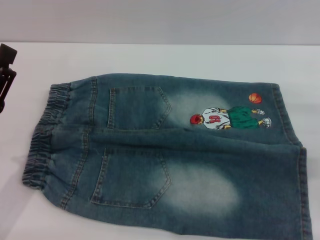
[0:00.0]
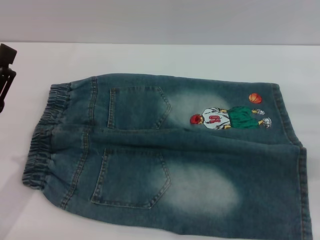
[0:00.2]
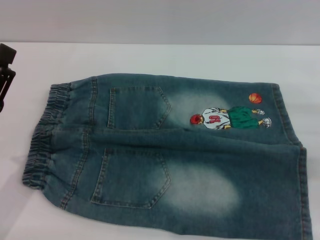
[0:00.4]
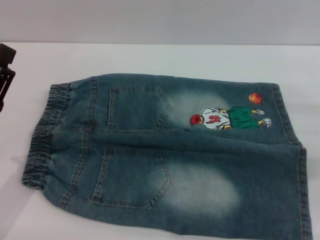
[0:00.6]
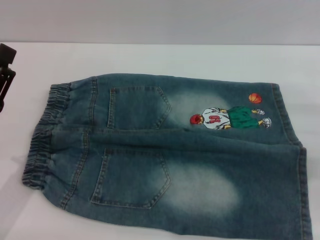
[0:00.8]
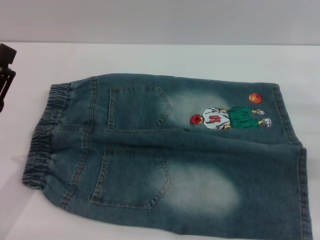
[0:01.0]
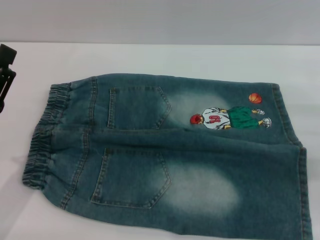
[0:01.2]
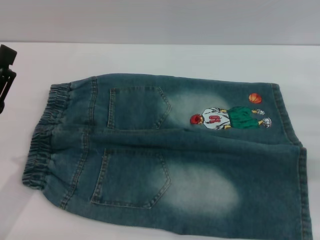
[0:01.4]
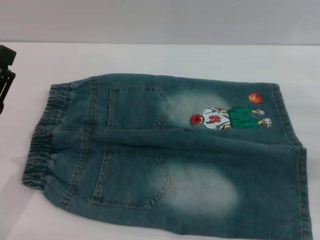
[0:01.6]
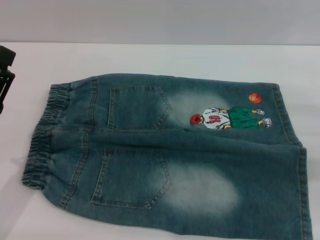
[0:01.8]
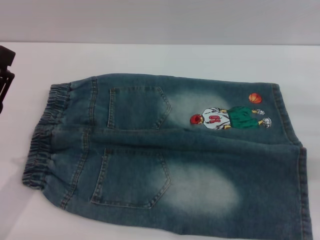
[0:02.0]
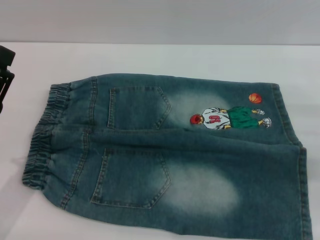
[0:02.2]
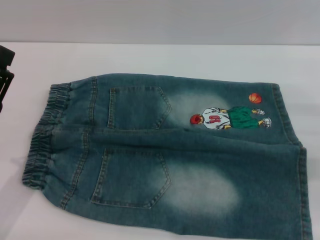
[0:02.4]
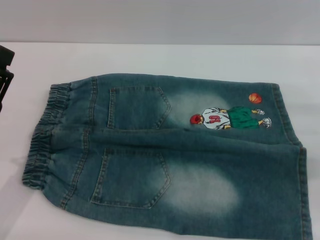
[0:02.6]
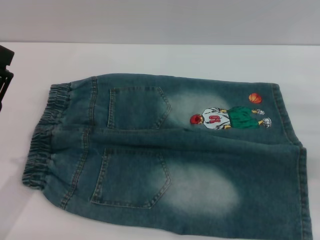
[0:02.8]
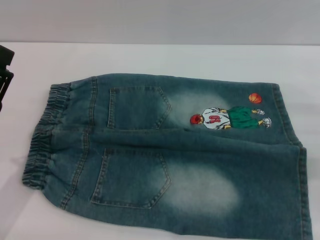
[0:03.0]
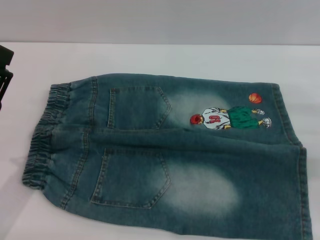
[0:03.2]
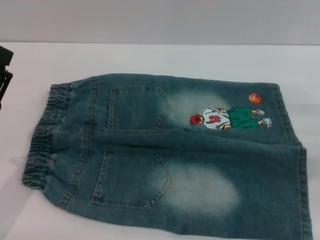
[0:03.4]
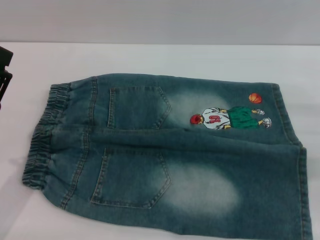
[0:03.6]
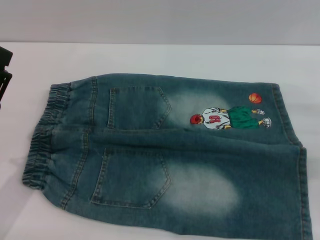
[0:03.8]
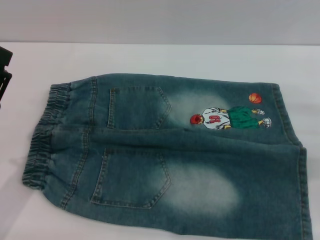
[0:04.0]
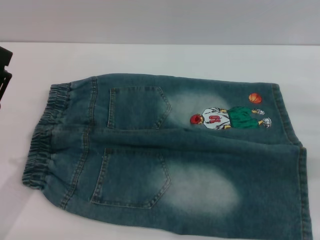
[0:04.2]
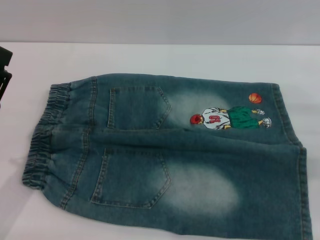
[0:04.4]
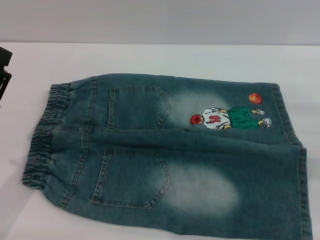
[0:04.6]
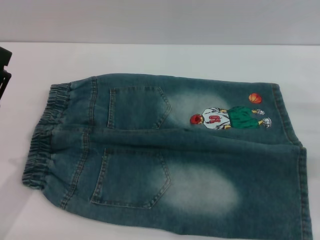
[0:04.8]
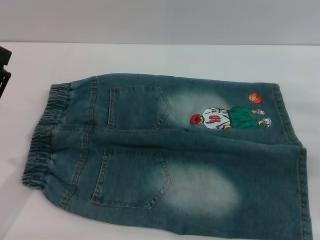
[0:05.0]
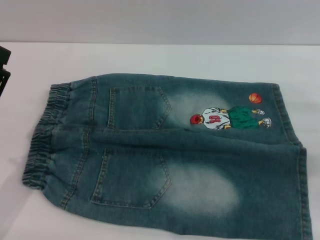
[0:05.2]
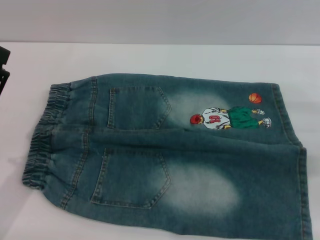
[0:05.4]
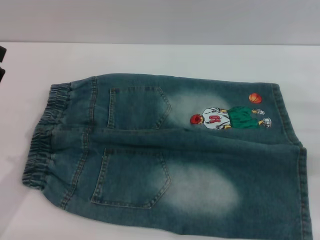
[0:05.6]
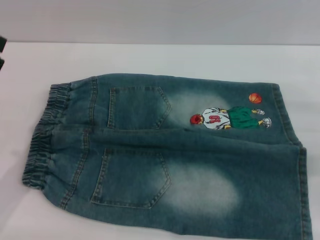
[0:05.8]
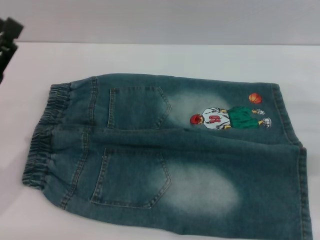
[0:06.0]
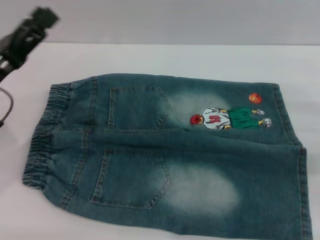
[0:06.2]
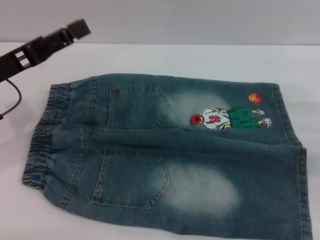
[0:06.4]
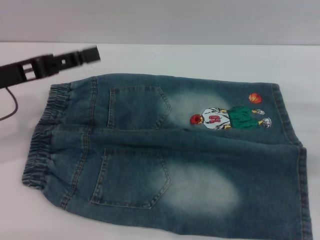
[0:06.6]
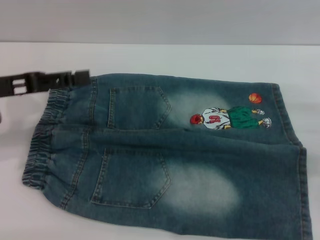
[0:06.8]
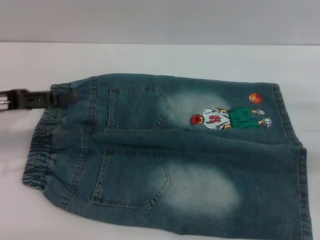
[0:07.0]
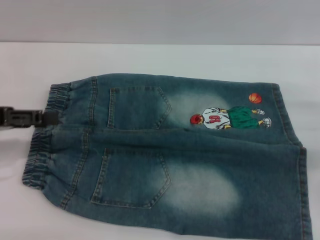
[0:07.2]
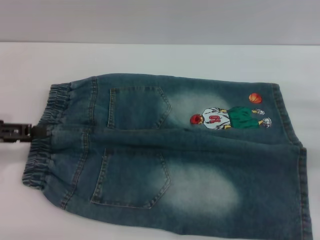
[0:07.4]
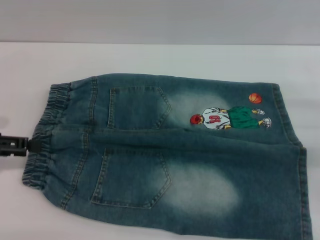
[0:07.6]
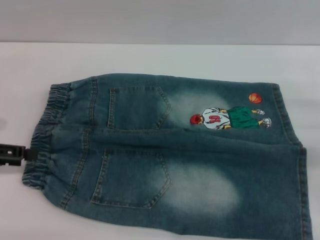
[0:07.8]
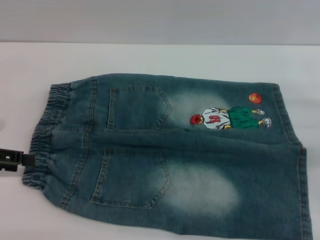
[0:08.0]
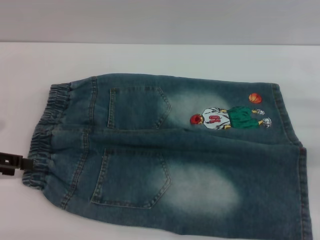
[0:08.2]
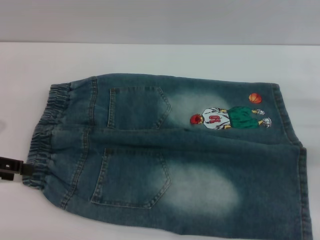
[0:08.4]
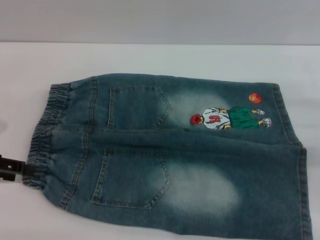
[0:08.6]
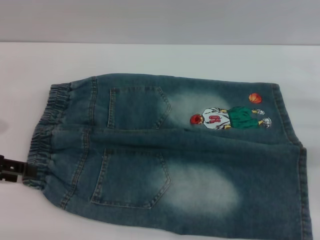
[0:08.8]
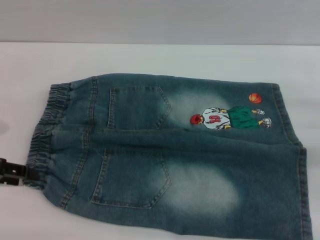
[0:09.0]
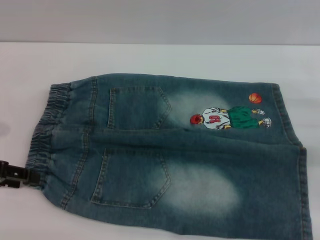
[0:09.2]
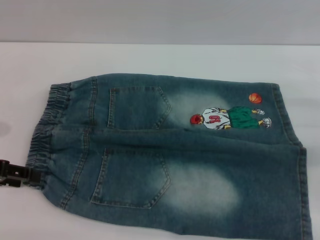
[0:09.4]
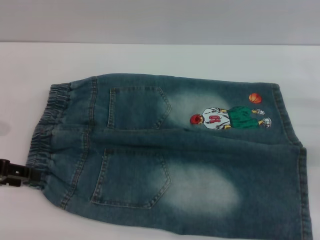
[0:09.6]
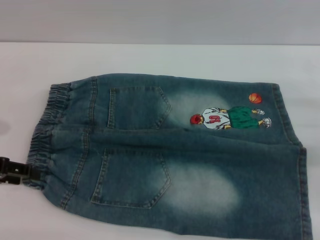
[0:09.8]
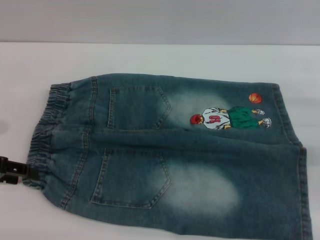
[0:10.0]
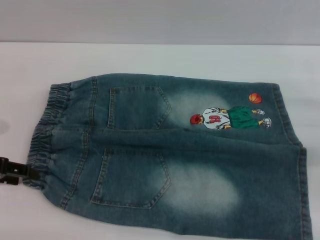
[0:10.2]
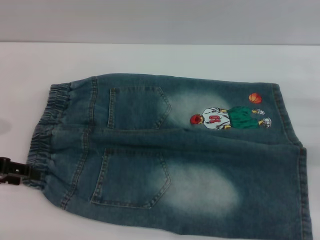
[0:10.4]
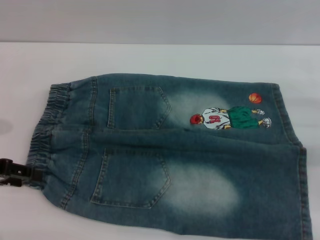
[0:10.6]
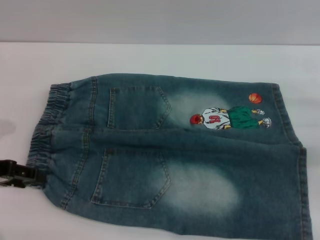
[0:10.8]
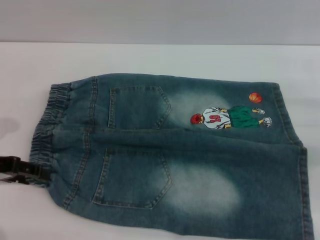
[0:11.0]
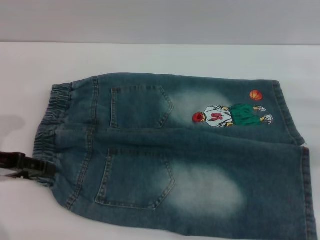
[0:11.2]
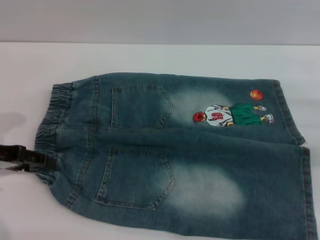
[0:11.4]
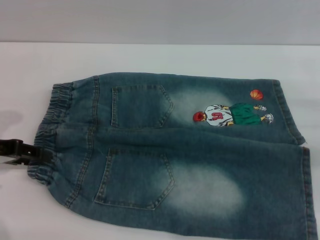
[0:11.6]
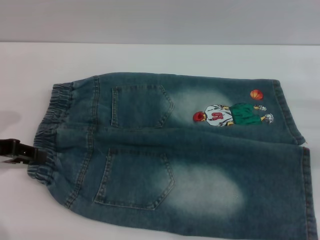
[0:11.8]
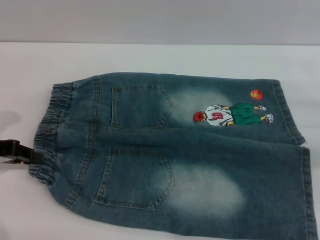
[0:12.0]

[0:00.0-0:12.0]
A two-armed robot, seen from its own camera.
0:00.0 to 0:04.4: Both grippers stay about where they are.
0:04.4 to 0:06.0: The grippers move only a little.
0:06.0 to 0:07.6: The left gripper is displaced to the left by some 10 cm.
0:07.6 to 0:09.0: The grippers move only a little.
0:09.0 to 0:10.4: The two grippers keep their place.
0:10.4 to 0:12.0: The left gripper closes its fingers.

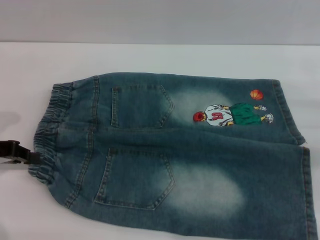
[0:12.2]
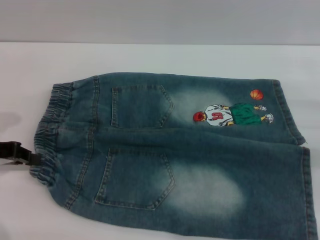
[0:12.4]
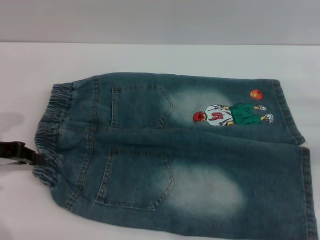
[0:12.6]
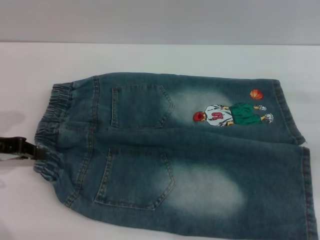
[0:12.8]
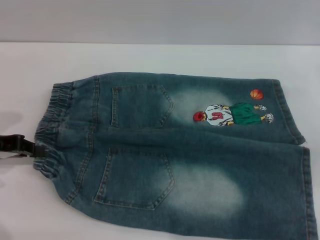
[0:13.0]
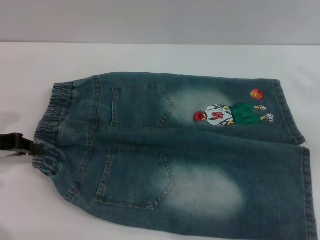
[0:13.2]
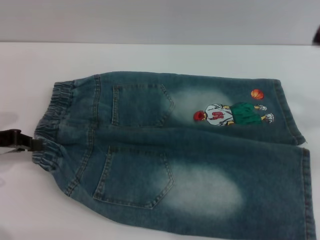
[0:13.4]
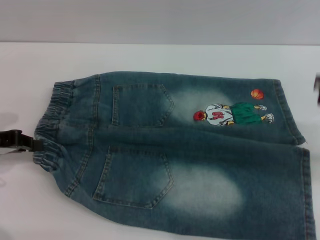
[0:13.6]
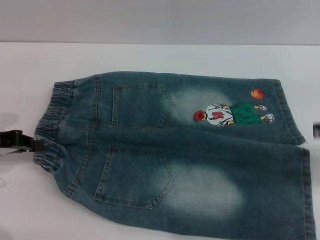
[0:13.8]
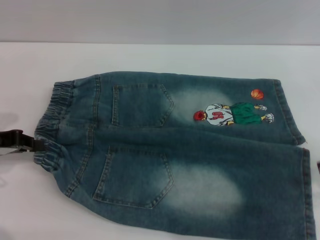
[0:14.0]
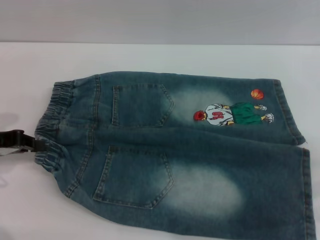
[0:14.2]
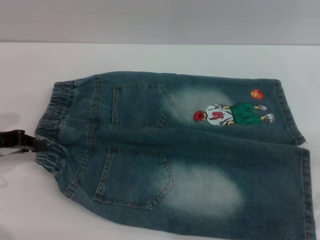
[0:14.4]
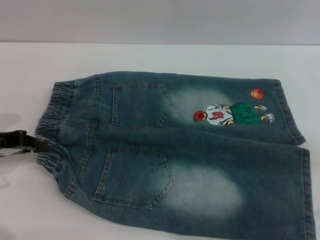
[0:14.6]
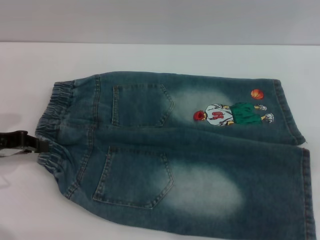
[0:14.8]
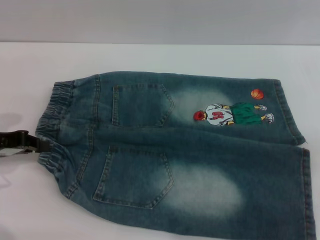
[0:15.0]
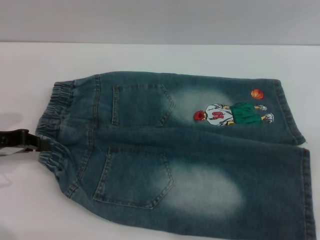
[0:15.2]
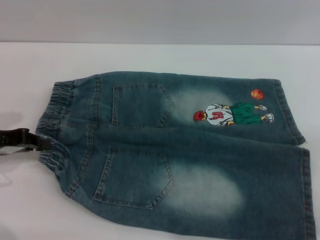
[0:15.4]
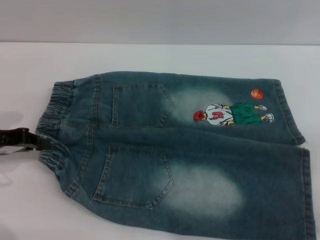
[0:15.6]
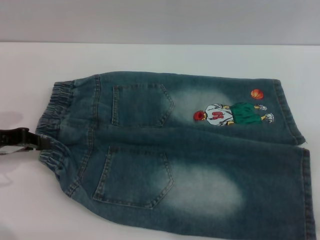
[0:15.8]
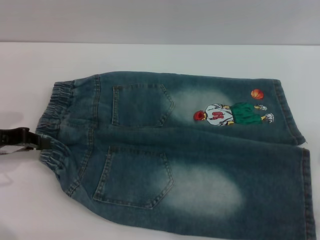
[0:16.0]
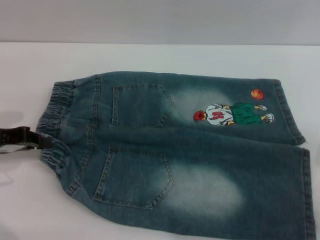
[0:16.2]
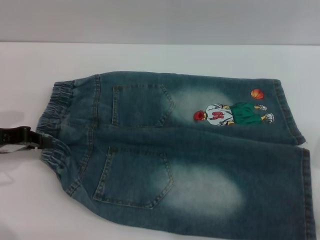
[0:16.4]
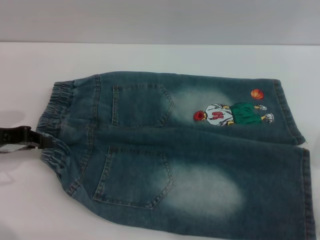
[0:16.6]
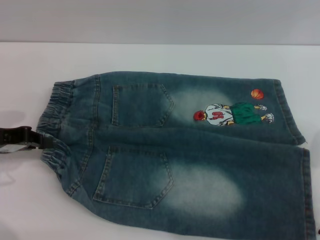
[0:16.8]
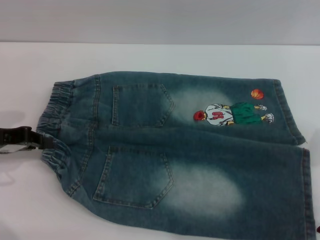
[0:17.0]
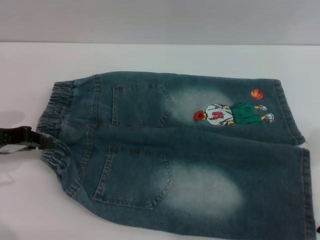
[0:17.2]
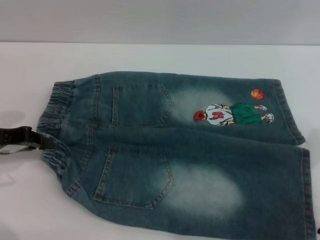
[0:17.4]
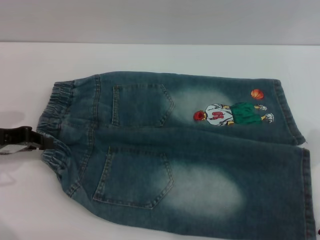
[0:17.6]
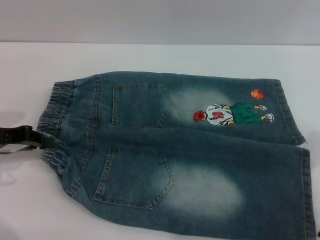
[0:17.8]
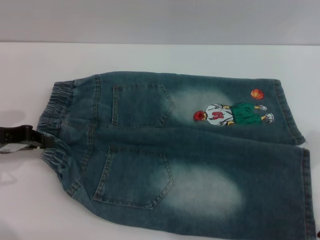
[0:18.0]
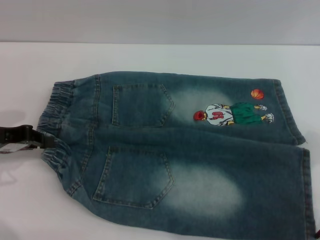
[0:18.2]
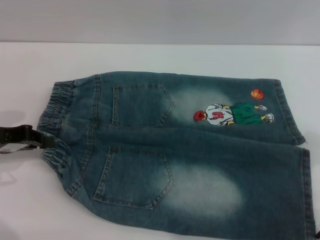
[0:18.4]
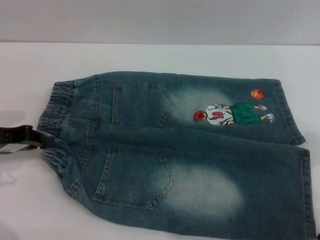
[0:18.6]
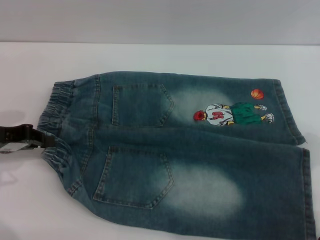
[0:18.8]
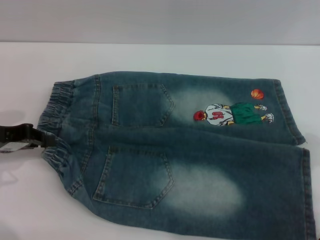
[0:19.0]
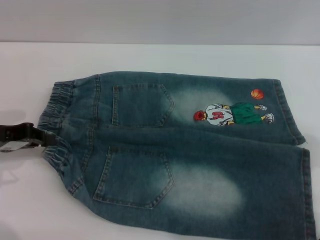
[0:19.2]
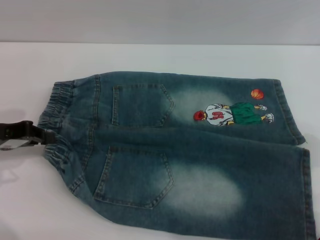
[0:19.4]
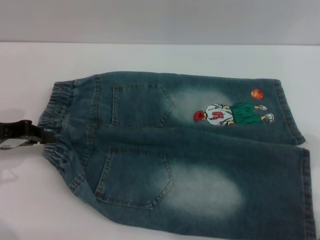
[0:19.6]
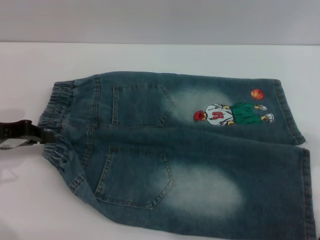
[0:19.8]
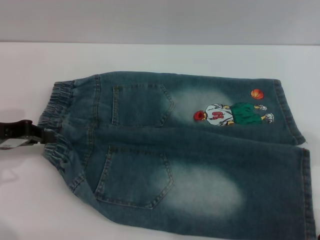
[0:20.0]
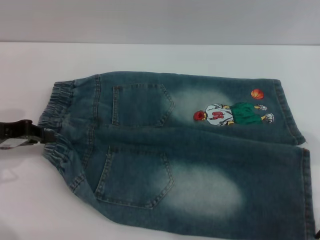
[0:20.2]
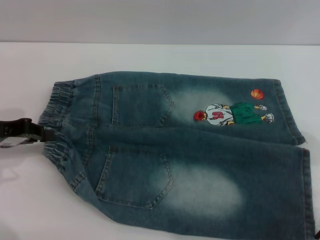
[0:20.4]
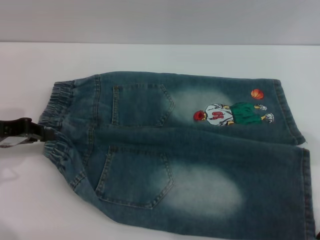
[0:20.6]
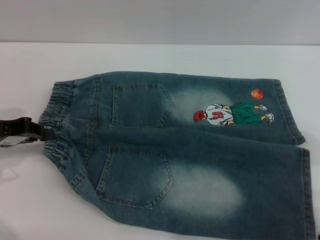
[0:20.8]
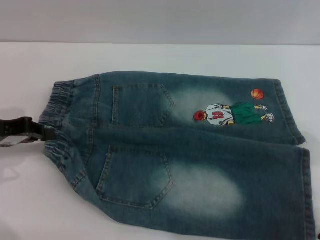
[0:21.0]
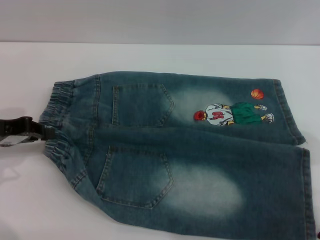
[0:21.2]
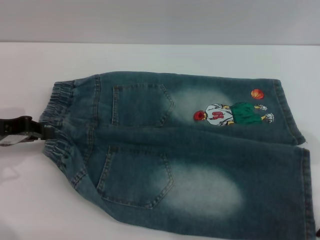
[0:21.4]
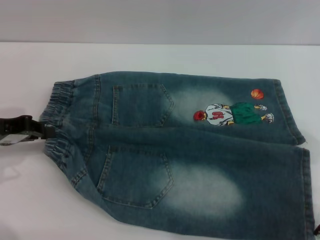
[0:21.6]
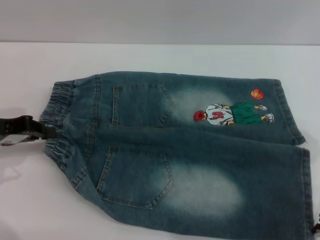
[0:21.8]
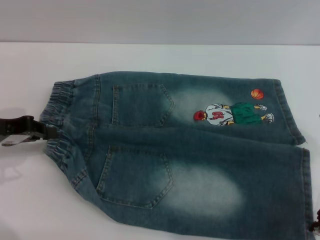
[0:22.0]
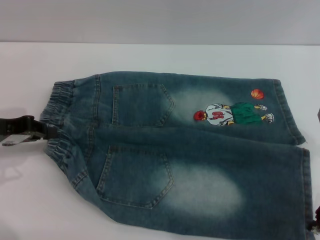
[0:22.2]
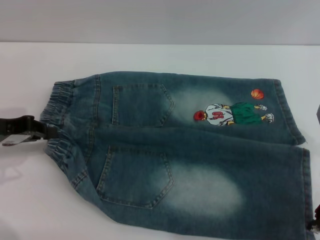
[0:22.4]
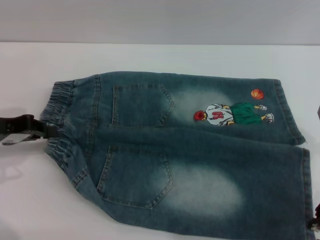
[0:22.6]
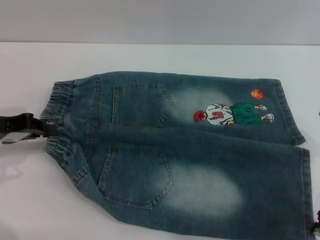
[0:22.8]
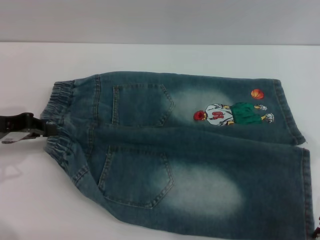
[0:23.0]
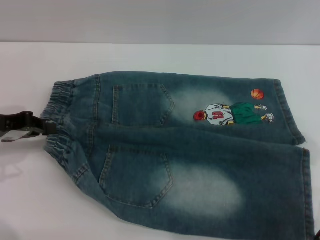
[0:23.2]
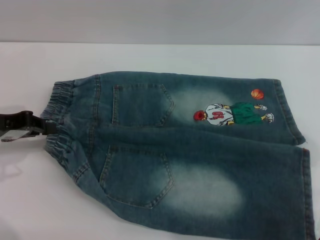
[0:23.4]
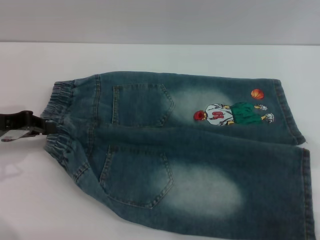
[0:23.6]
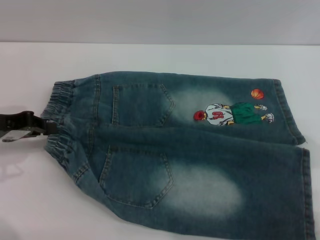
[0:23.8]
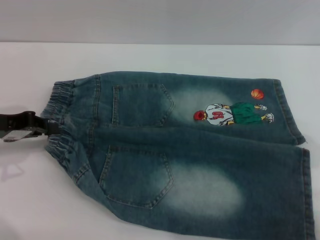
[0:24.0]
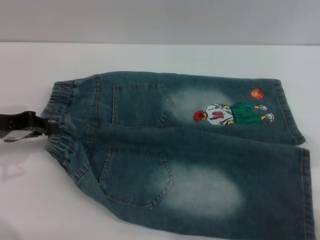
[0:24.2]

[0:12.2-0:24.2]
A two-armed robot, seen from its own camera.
0:12.2 to 0:13.8: The right gripper heads upward, covering some 10 cm.
0:15.2 to 0:16.6: The grippers stay close to where they were, moving slightly.
0:18.2 to 0:21.2: Neither gripper changes place.
0:21.2 to 0:24.2: There are only small adjustments of the grippers.
